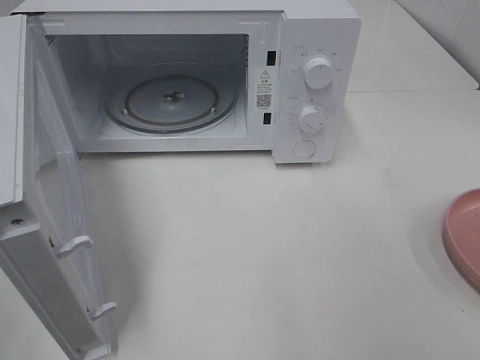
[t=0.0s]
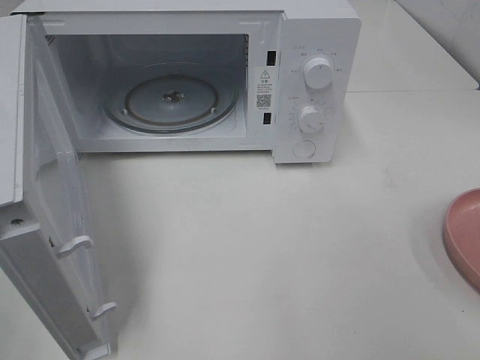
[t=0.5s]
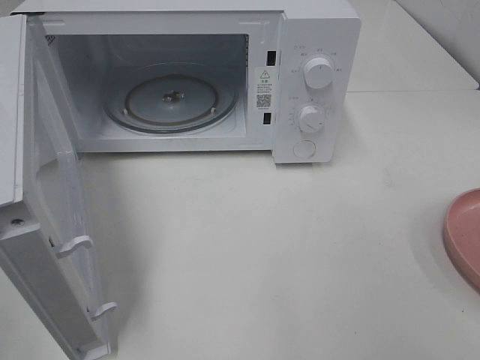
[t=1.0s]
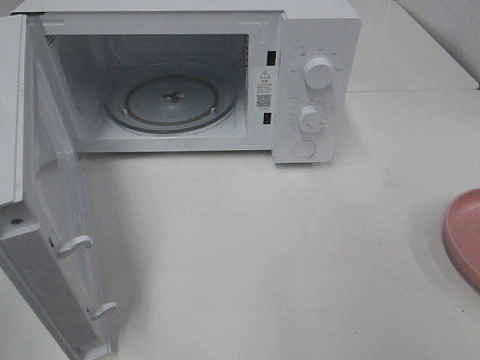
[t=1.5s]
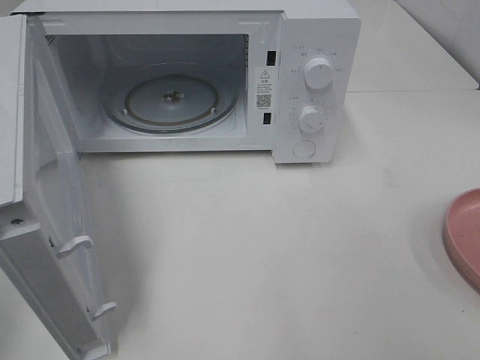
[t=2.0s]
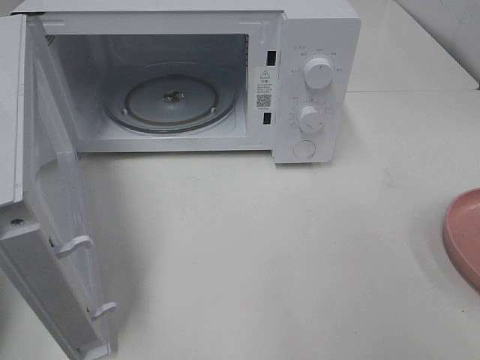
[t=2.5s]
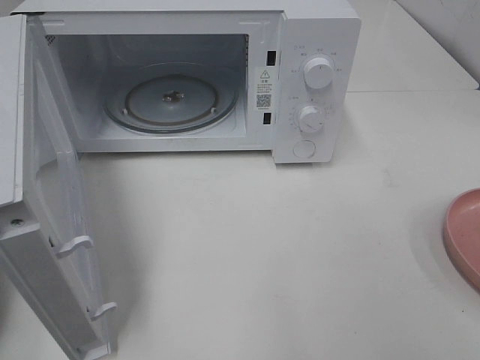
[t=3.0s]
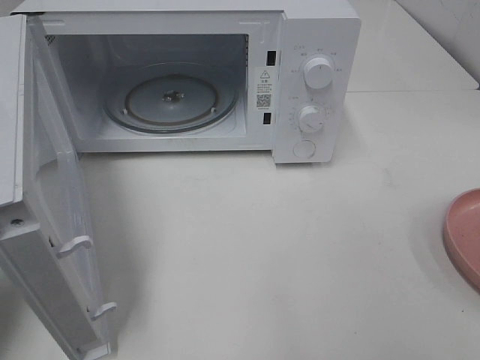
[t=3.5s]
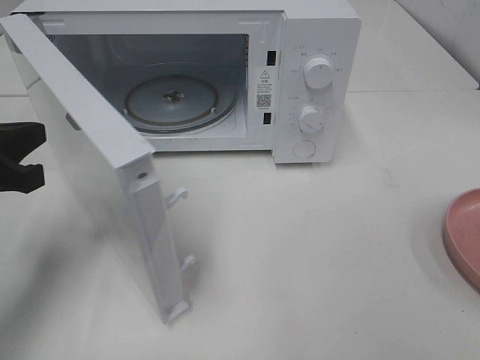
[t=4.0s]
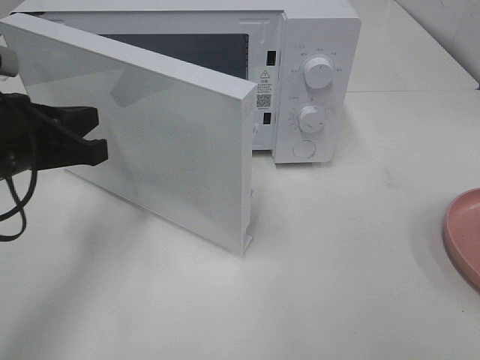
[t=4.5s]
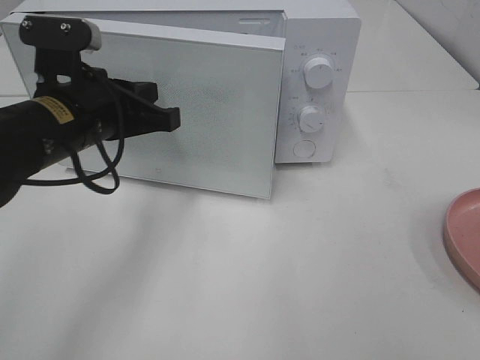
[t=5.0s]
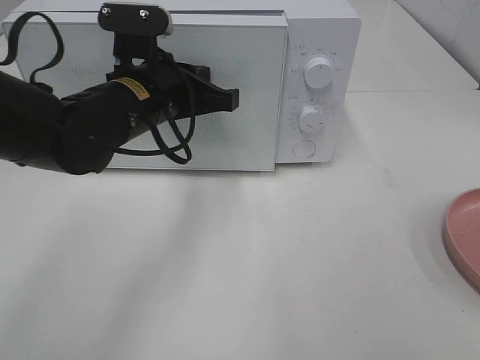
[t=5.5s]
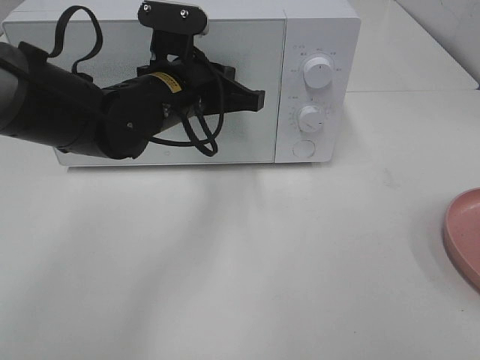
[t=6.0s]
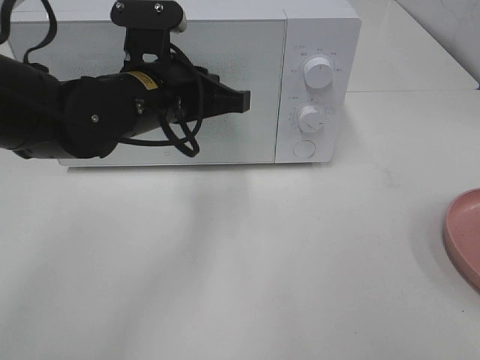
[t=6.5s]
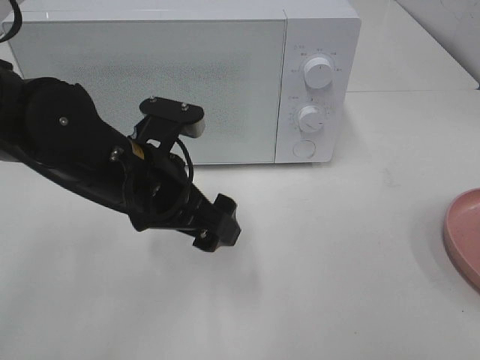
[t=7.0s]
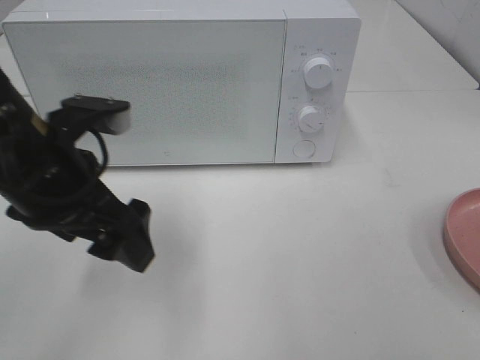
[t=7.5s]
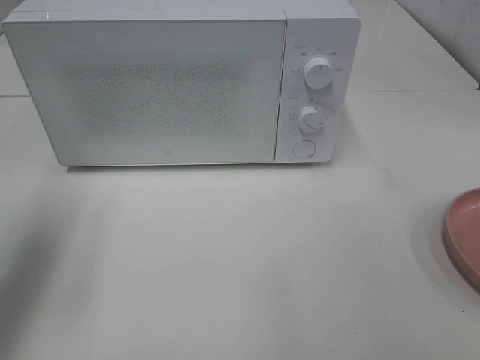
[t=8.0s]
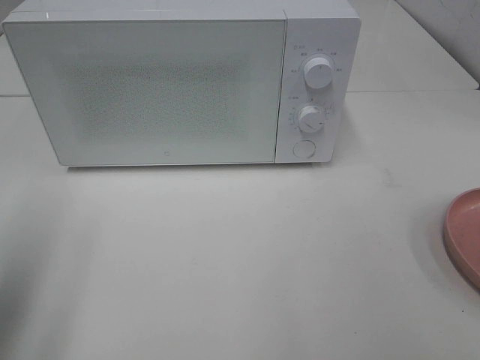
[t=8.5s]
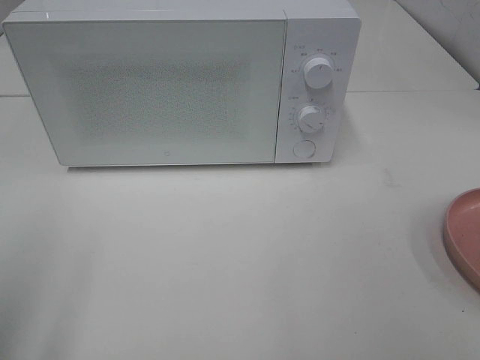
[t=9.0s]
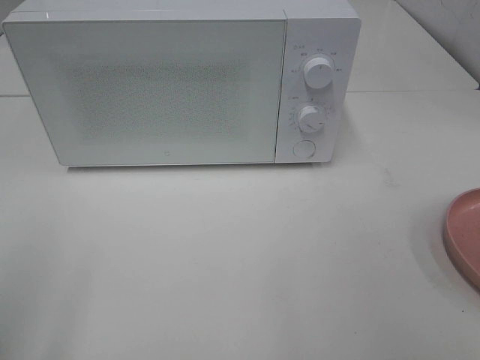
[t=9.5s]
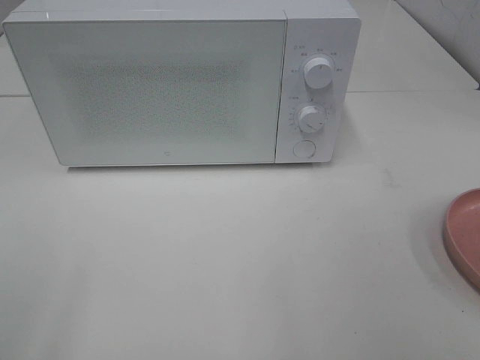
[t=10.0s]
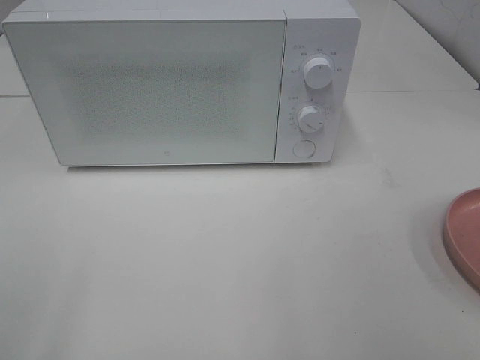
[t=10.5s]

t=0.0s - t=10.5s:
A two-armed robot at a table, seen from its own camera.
Task of the whole recording: Heat the burger.
Step, t=0.0s - t=6.0s: Left hand: close the microwave door.
t=2.0s - t=4.0s: The left gripper goes approximately 20 cm forward and downward.
t=4.0s - t=6.5s: The left gripper travels to the right and forward by roughly 20 cm.
t=6.5s - t=8.5s: The left gripper is displaced to the left and backward by about 30 cm, and opens up.
t=8.5s - t=10.5s: The left gripper goes about 15 cm backward.
